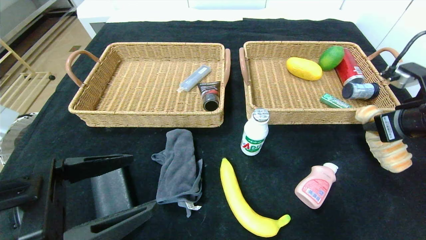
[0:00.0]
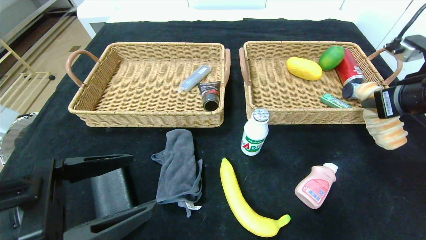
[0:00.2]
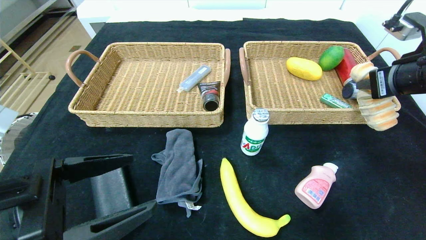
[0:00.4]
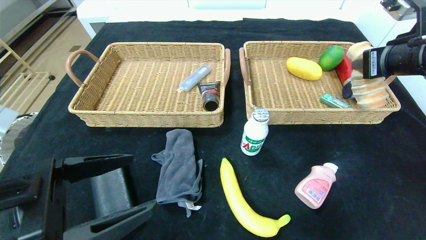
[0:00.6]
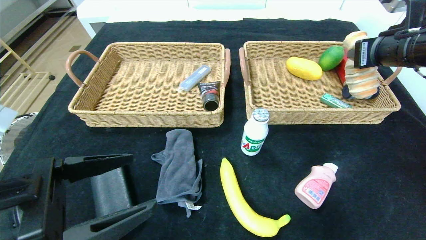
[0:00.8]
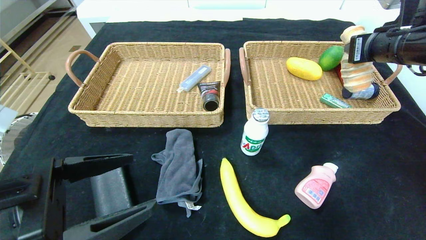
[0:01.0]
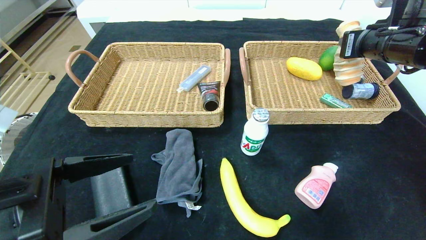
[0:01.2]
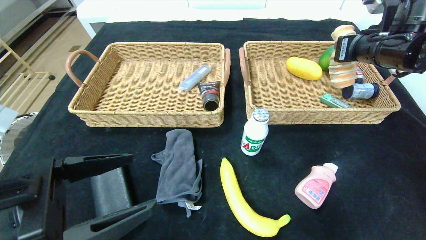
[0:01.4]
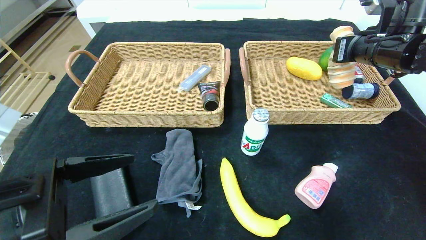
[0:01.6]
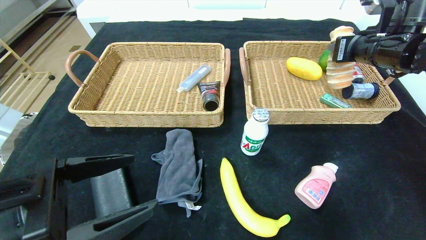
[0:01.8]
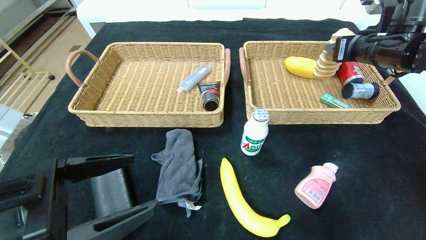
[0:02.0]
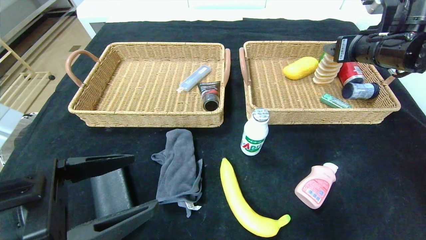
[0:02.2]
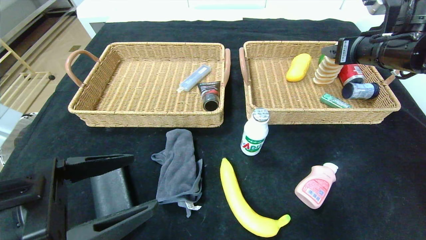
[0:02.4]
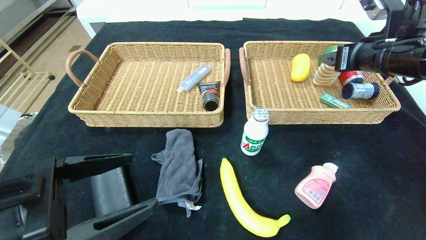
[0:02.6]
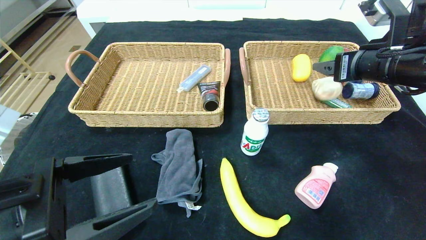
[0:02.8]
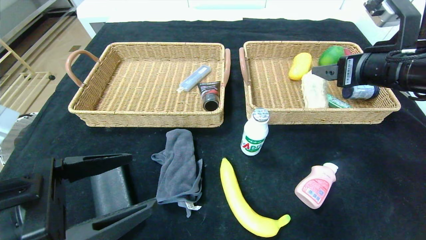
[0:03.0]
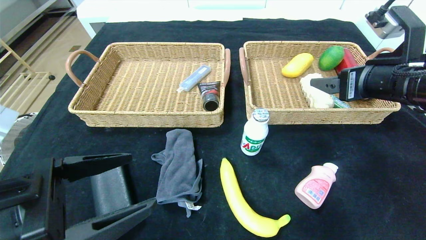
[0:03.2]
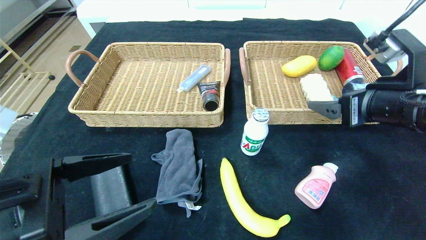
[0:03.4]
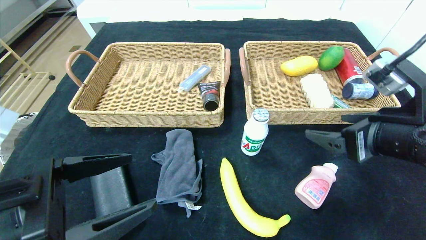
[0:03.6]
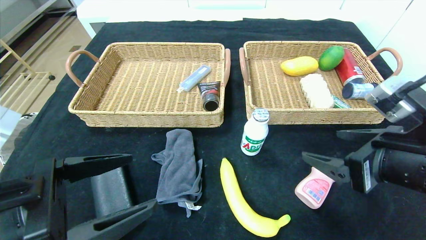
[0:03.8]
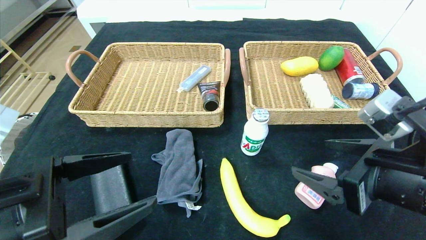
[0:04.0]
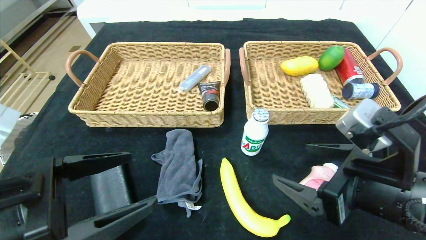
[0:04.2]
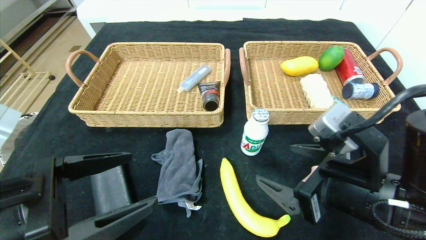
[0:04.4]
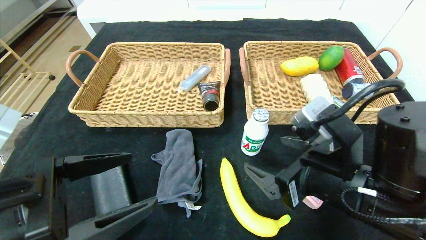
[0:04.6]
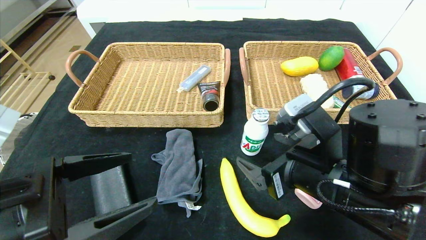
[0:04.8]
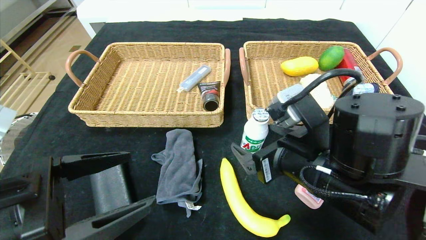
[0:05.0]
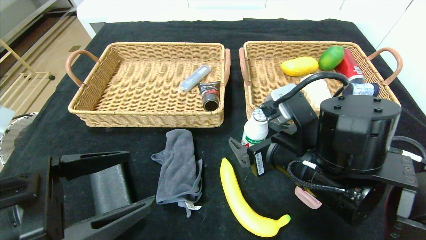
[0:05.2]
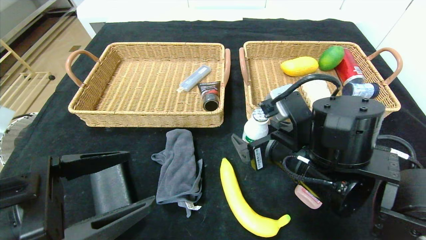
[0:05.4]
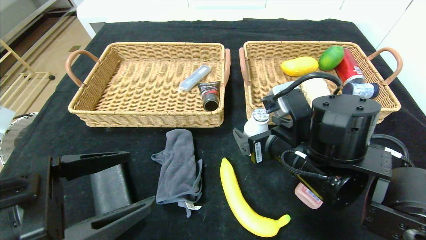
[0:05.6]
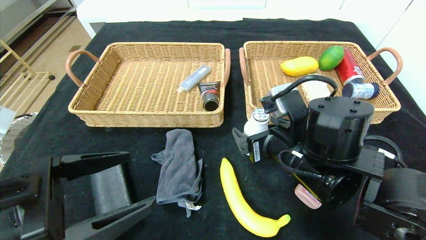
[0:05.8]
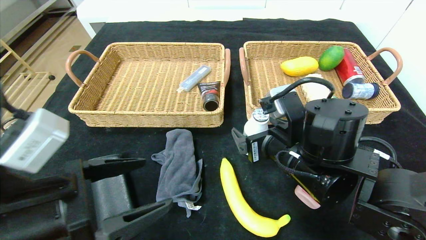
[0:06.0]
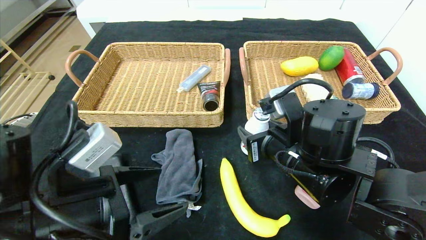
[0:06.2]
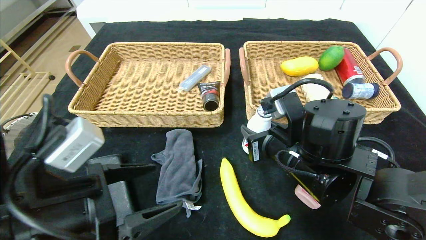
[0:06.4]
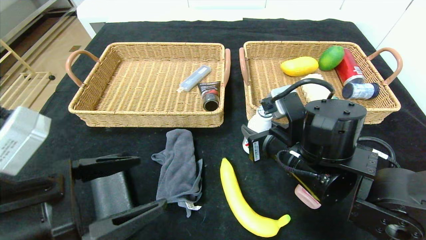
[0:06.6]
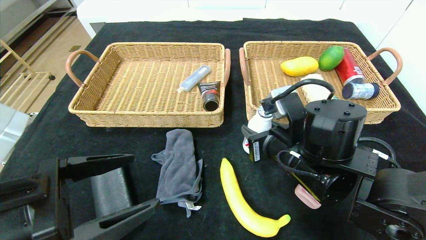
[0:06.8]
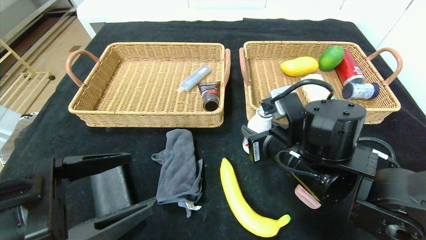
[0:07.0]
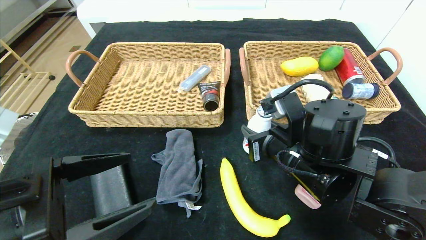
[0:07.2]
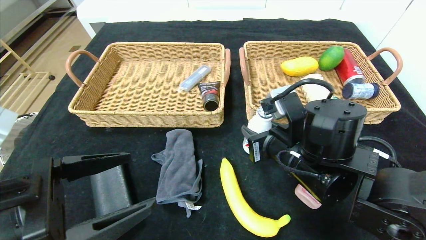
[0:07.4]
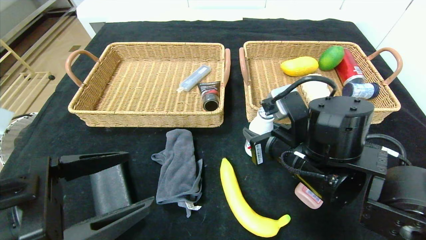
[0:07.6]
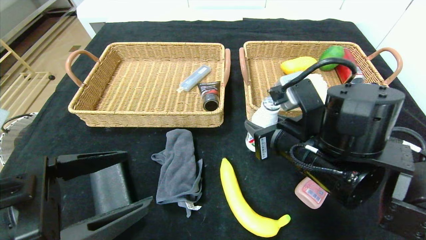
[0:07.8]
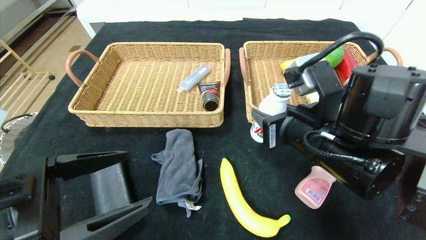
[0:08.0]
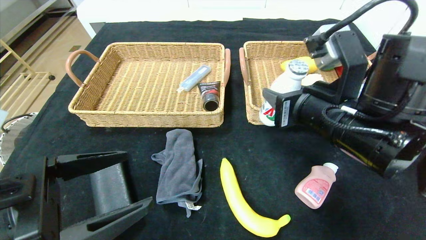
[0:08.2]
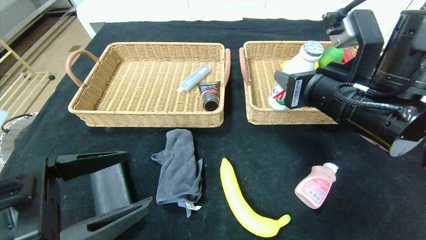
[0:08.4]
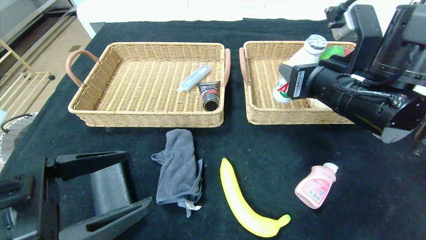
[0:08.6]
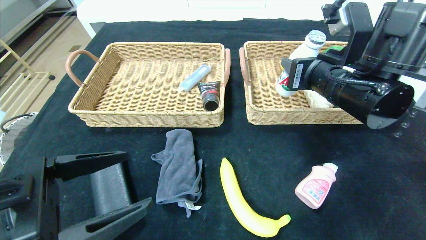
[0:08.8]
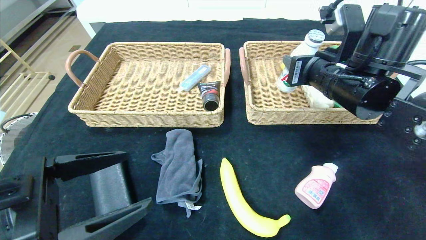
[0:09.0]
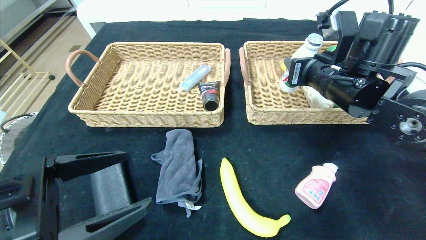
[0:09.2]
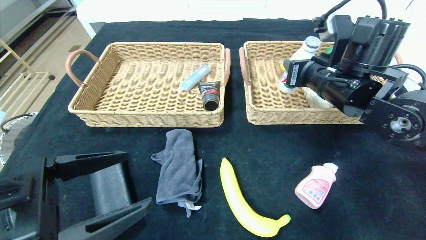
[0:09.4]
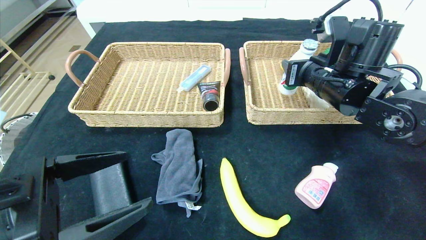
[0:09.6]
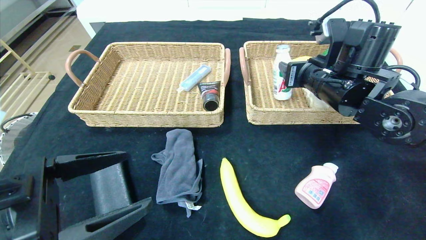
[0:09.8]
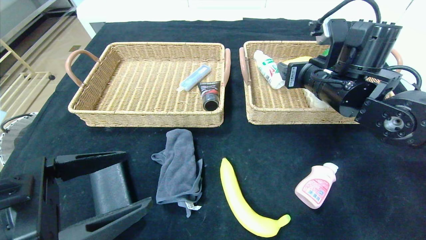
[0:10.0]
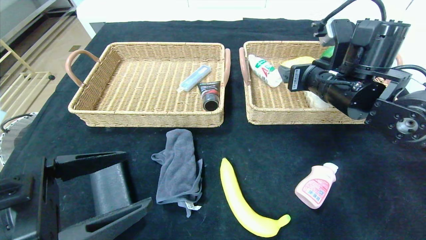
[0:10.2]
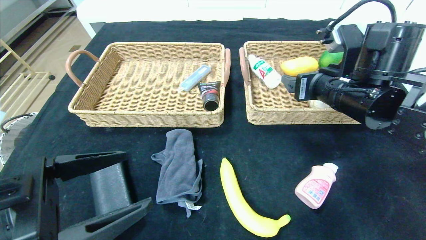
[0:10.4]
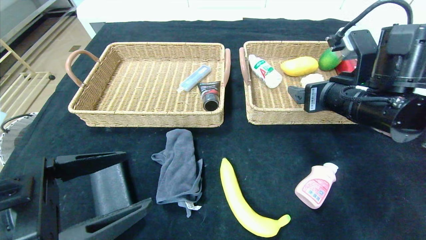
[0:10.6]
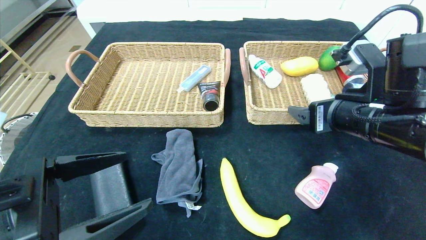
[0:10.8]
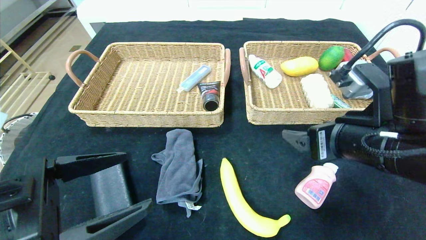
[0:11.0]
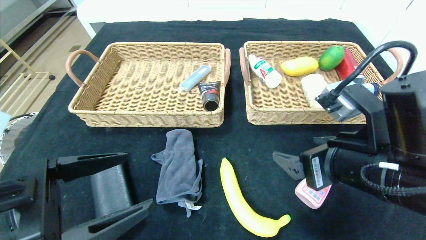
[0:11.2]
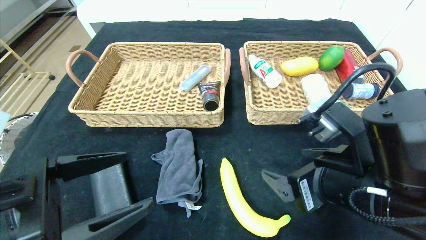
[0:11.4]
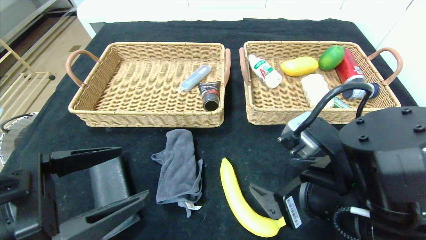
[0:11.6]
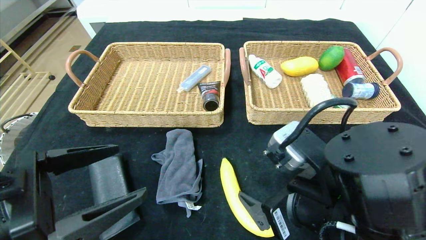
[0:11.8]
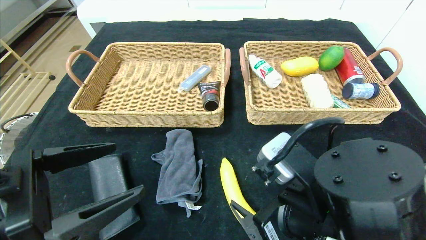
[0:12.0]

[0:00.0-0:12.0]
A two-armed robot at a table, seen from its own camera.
Step, 0:00.0 to 0:03.6: Pick up the long bread and put it in the right basket.
Step, 0:03.8 to 0:11.0: Pick up the ad milk and put it in the right basket.
0:00.0 to 0:01.6: The right gripper moves forward and upward, approximately 15 cm.
0:01.6 to 0:03.0: The right gripper shifts approximately 10 cm backward, and opens.
0:03.0 to 0:04.4: The right gripper goes some 15 cm backward, downward and to the left.
0:04.4 to 0:06.0: The right gripper goes about 10 cm forward and to the left.
0:06.0 to 0:07.6: The right gripper closes its fingers.
0:07.6 to 0:09.0: The right gripper moves upward, forward and to the right, roughly 15 cm.
0:09.0 to 0:10.4: The right gripper opens up.
0:10.4 to 0:12.0: The right gripper travels backward, to the left and downward by approximately 20 cm.

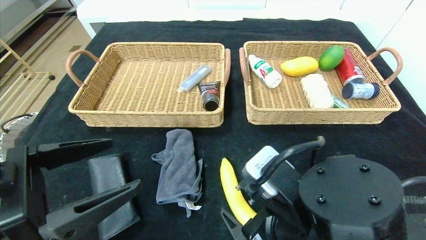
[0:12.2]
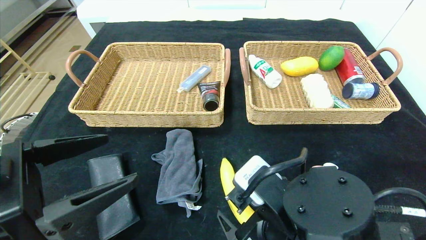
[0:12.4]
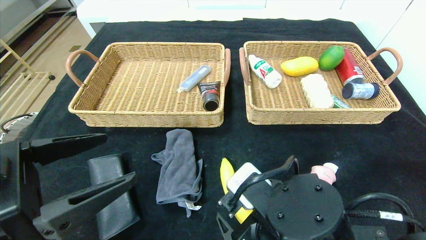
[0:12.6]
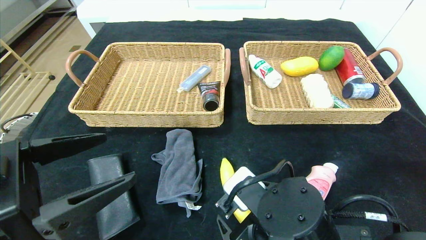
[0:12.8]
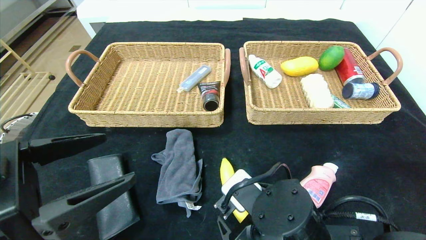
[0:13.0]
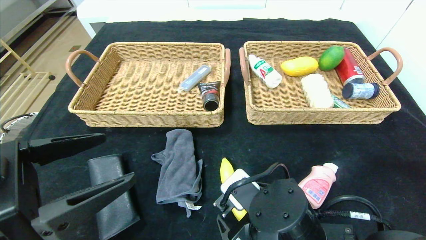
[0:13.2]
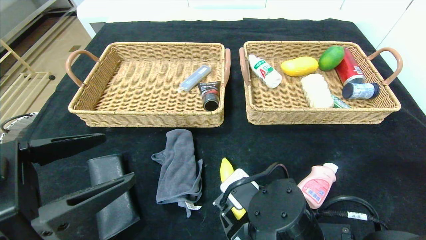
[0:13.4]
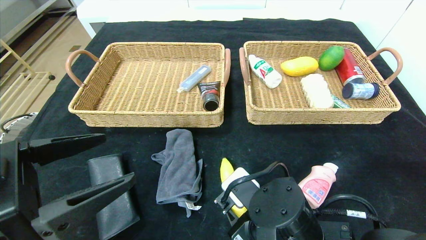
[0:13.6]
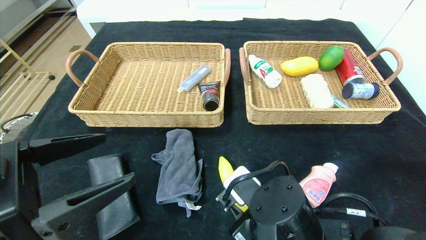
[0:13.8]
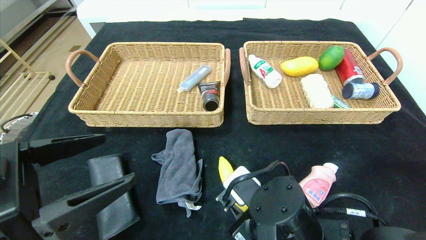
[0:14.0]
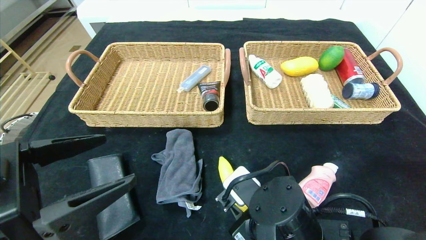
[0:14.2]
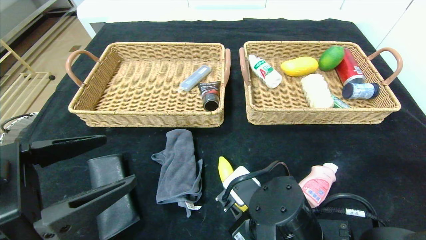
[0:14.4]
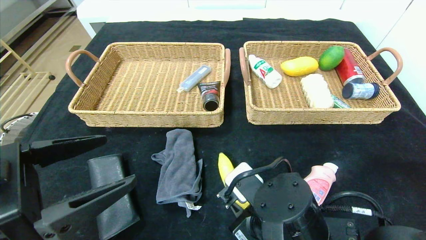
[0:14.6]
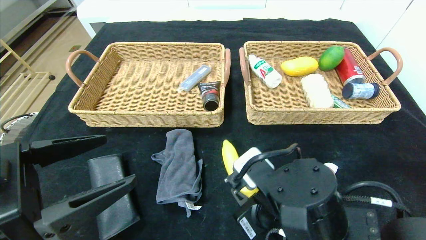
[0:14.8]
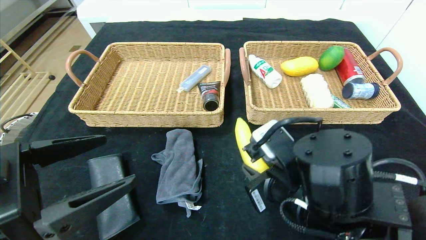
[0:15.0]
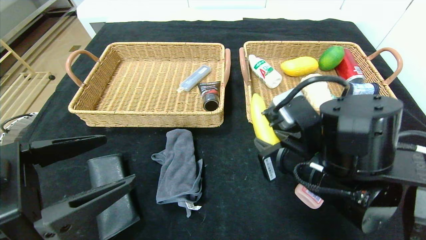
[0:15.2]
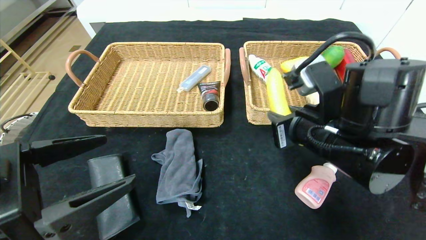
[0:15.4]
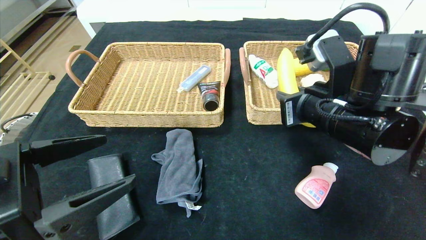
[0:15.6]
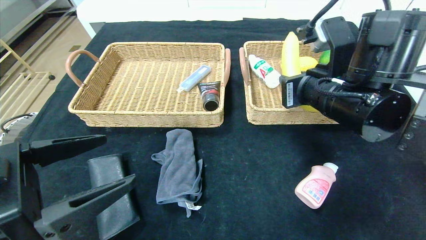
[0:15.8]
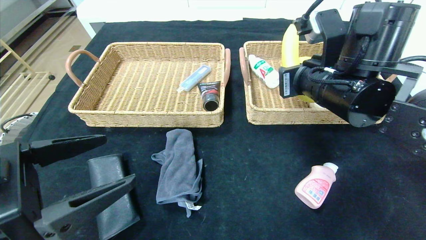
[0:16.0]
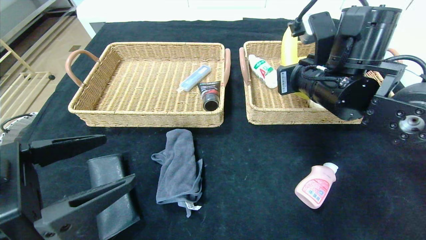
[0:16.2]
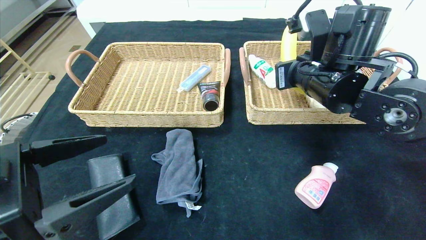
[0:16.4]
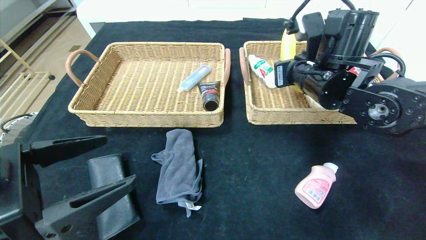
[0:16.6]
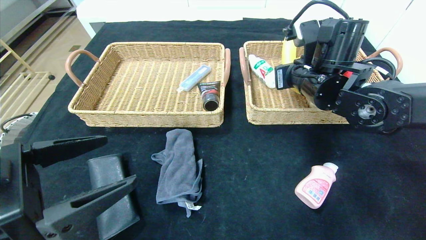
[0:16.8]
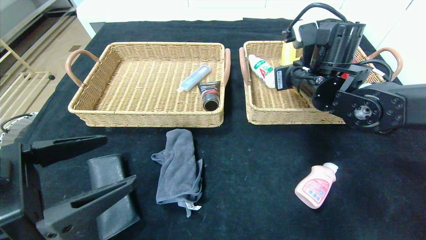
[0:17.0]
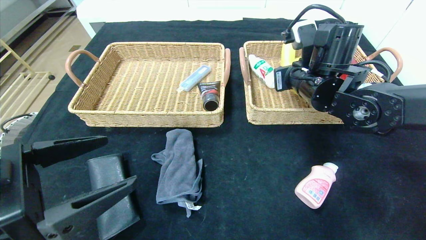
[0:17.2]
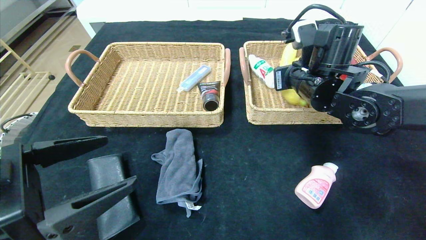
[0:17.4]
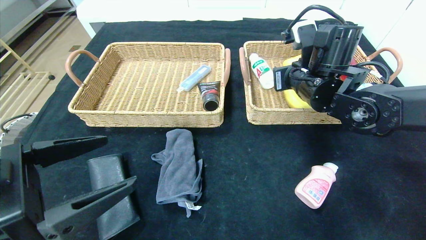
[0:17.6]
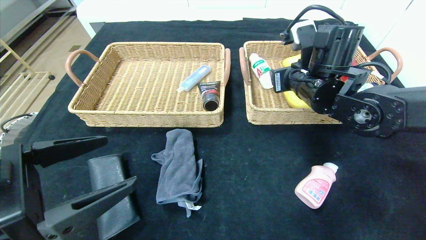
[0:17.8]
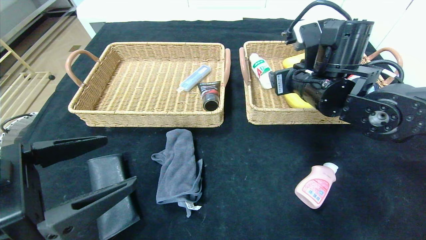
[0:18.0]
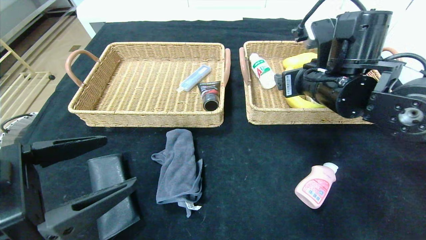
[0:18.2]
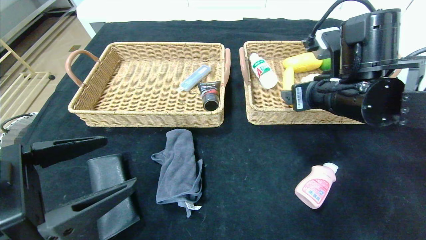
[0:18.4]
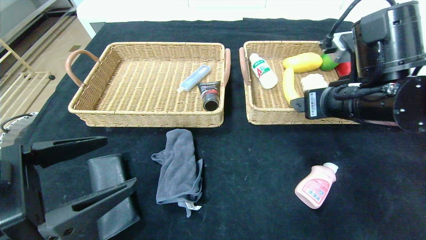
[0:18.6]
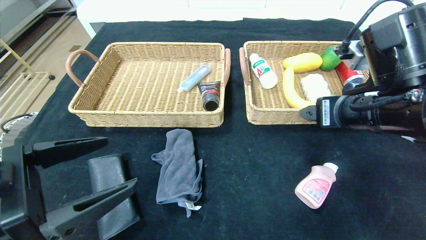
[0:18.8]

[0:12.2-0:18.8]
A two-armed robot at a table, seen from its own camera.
0:12.2 to 0:13.8: The right gripper moves about 5 cm, and closes.
0:13.8 to 0:15.4: The right gripper is displaced upward, to the right and forward by some 15 cm.
0:15.4 to 0:17.2: The right gripper heads forward, covering approximately 15 cm.
0:17.2 to 0:18.8: The right gripper shifts approximately 15 cm backward, and opens its fingers.
